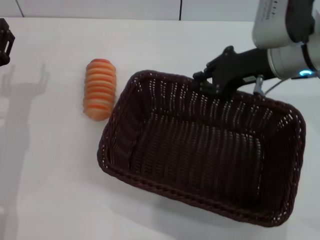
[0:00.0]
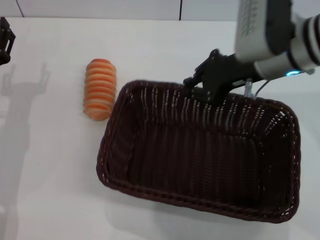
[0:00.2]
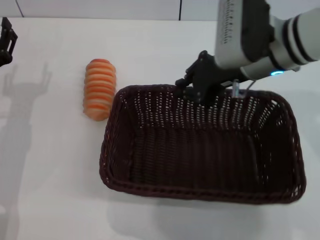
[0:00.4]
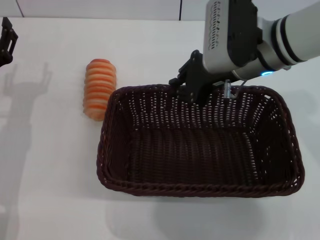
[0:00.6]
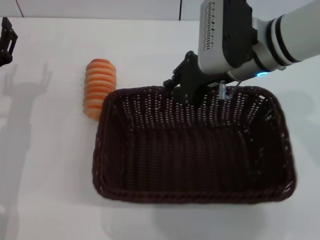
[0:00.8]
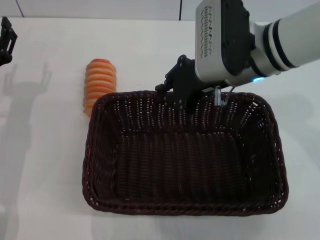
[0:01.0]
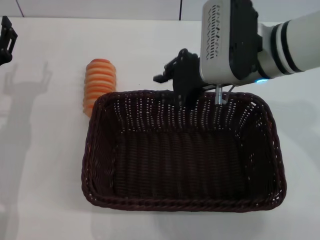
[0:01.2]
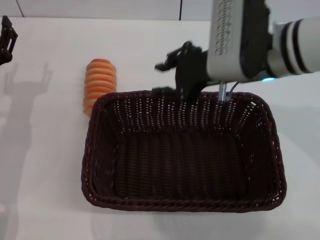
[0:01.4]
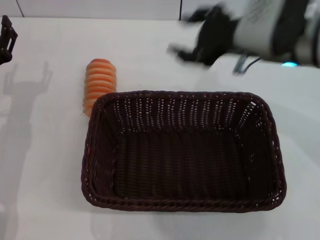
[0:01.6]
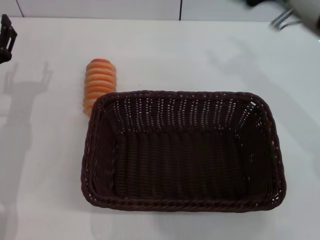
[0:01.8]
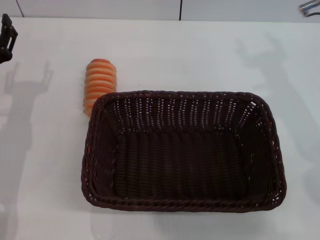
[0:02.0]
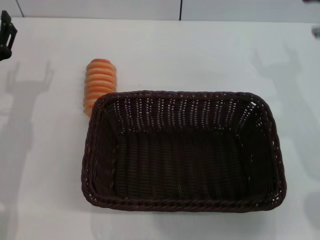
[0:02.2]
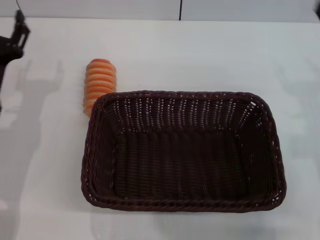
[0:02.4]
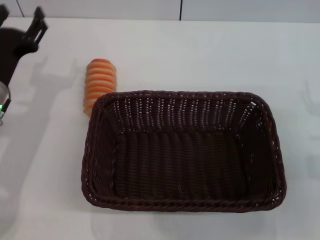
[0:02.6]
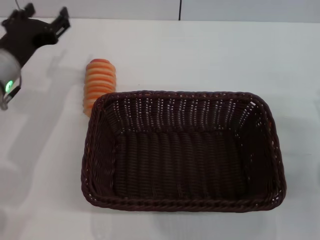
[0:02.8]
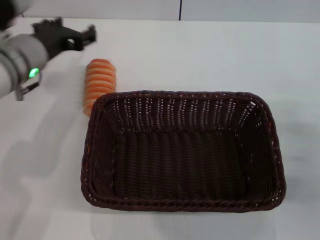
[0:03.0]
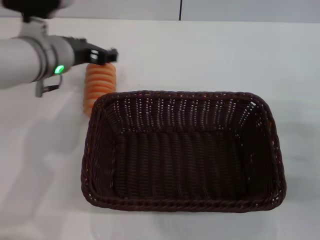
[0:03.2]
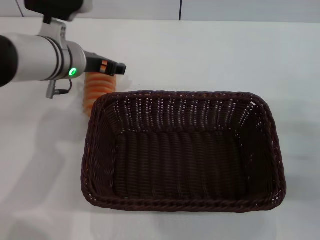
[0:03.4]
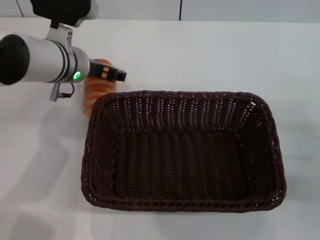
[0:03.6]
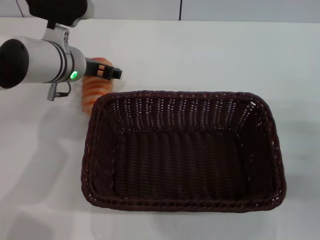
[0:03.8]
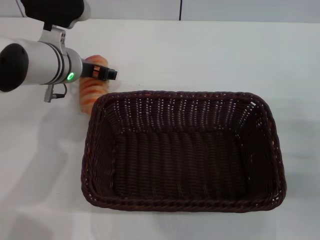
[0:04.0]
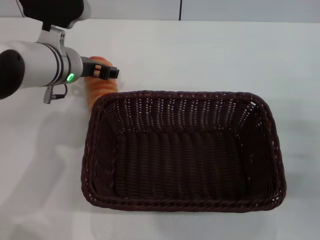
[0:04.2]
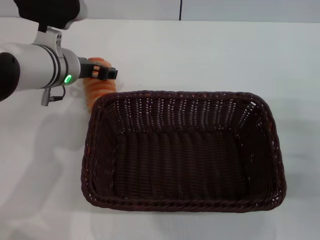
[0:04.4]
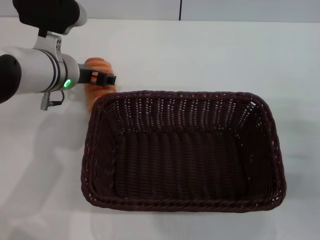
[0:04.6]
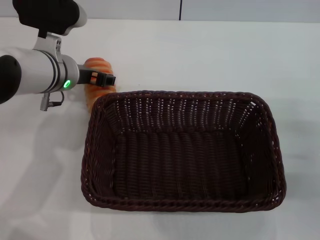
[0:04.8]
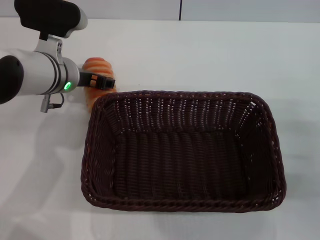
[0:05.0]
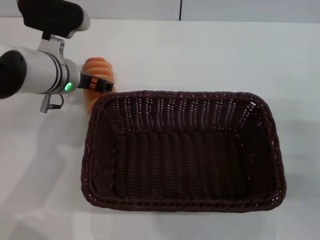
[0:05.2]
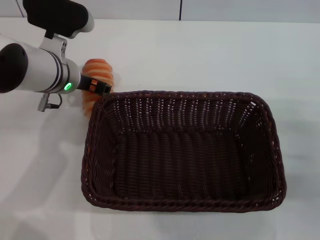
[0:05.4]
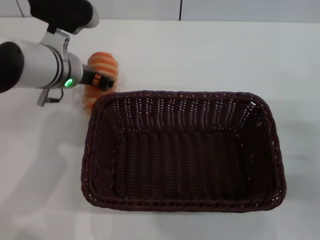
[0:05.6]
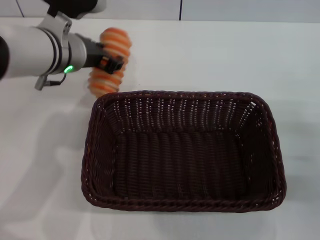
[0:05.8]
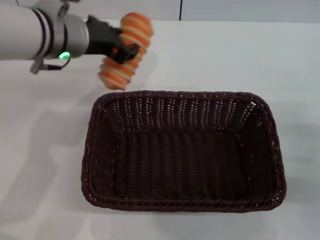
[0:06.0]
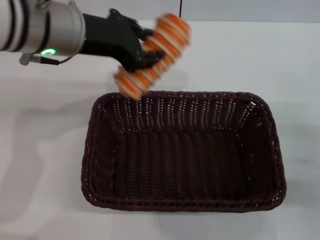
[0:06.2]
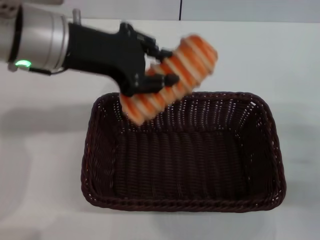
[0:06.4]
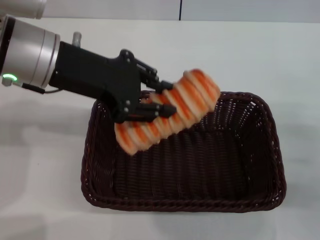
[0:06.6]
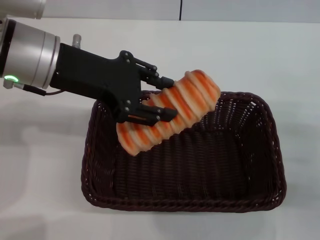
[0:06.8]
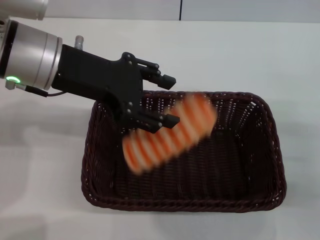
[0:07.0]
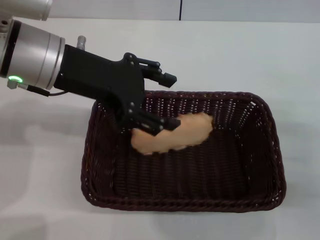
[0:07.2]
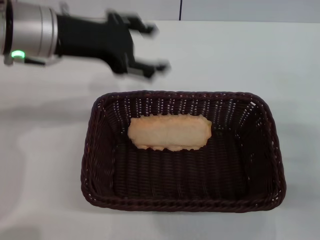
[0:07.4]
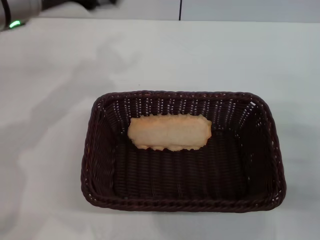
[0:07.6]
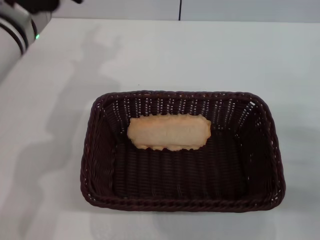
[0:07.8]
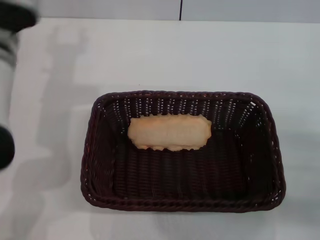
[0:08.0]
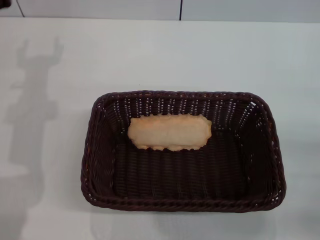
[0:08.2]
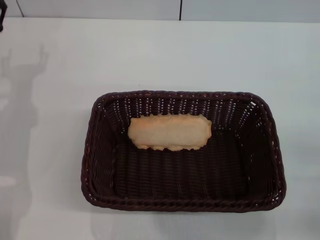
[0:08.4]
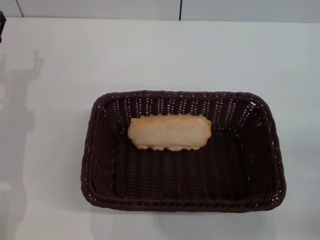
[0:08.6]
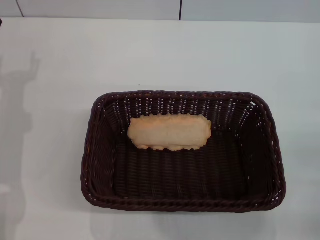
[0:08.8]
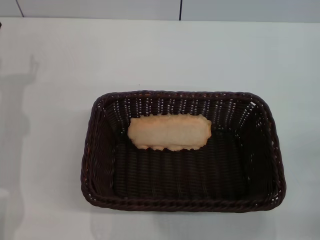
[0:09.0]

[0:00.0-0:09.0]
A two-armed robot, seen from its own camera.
Step, 0:00.0 to 0:01.4: Place the dark basket in the center of view with the right gripper.
Step, 0:01.6 to 0:05.6: Pick up the long bread with the left gripper.
Step, 0:05.8 to 0:07.2: Place the long bread into the dark basket with the left gripper.
0:00.0 to 0:01.6: The right gripper opens its fingers.
0:01.6 to 0:03.0: The right gripper heads downward, to the right and backward, covering roughly 25 cm, and opens its fingers. Meanwhile the left gripper moves upward, to the right and forward, about 15 cm.
0:04.4 to 0:06.0: The left gripper is displaced upward by roughly 5 cm, and closes.
0:06.0 to 0:07.6: The left gripper heads to the left, covering some 5 cm, and opens its fingers.
0:07.6 to 0:09.0: The left gripper goes roughly 15 cm downward and to the left. The right gripper shifts by about 5 cm.
